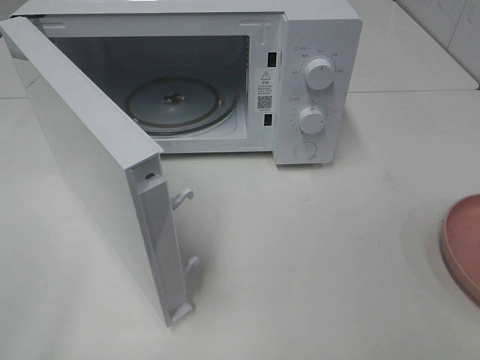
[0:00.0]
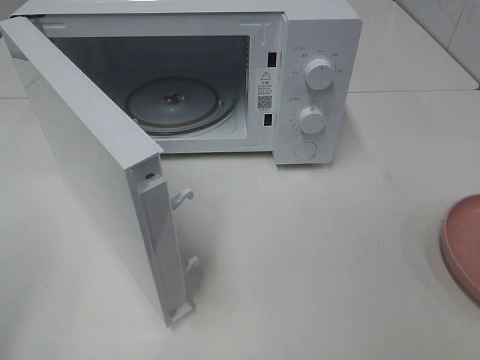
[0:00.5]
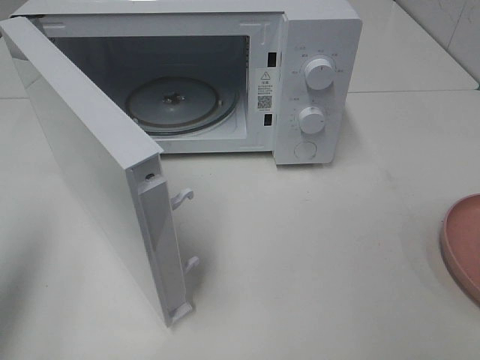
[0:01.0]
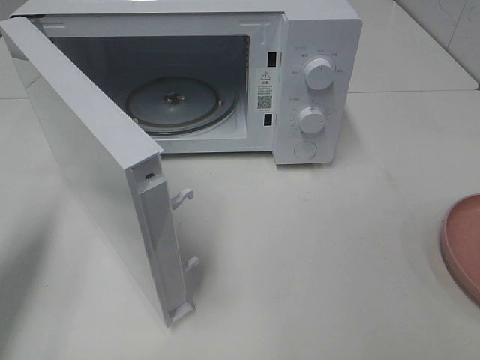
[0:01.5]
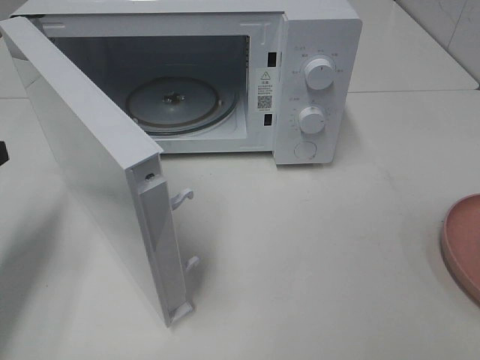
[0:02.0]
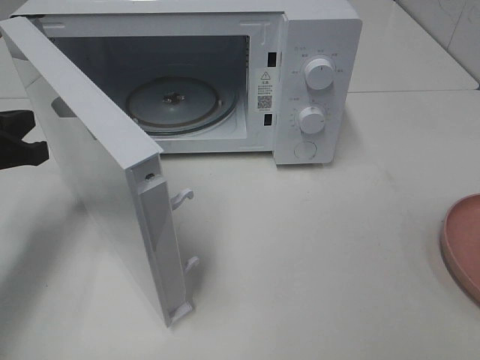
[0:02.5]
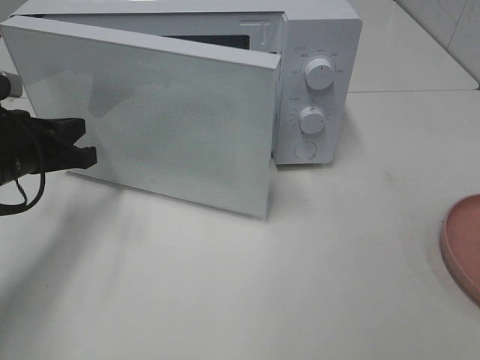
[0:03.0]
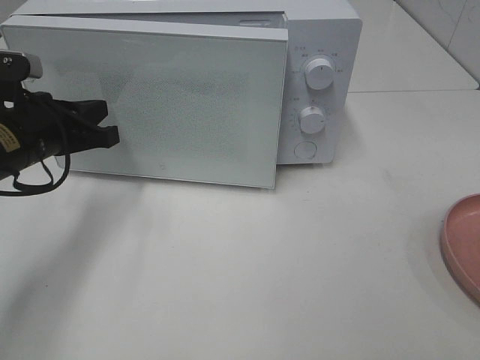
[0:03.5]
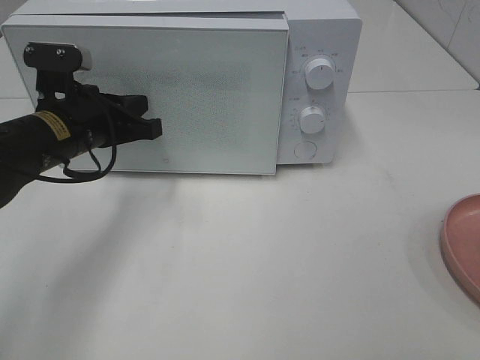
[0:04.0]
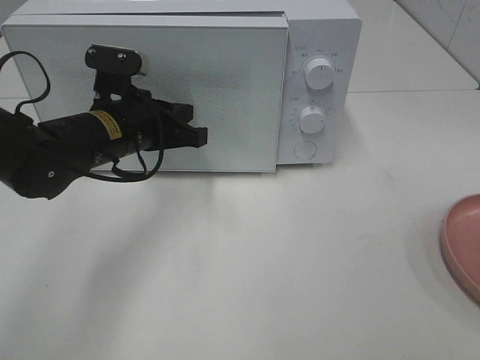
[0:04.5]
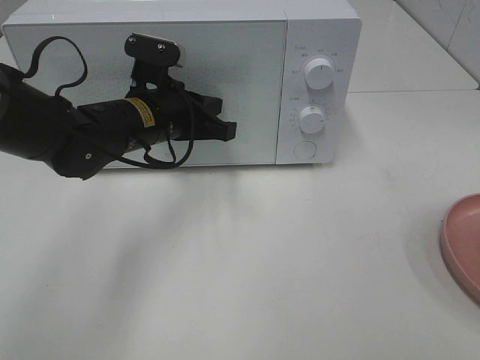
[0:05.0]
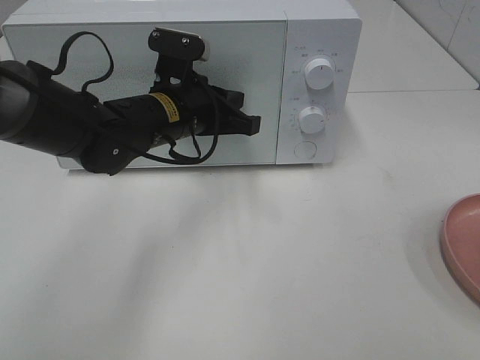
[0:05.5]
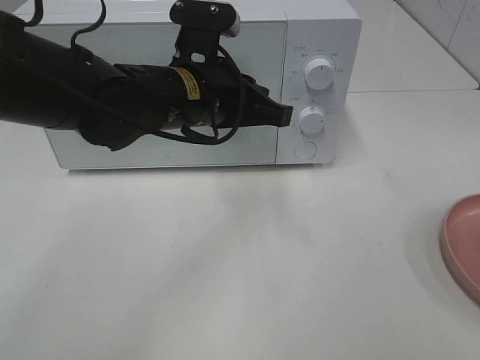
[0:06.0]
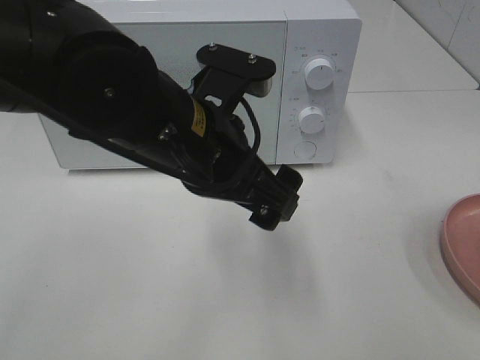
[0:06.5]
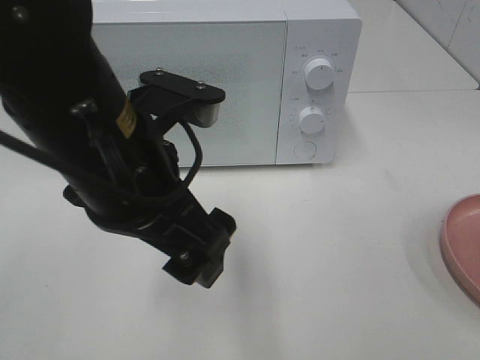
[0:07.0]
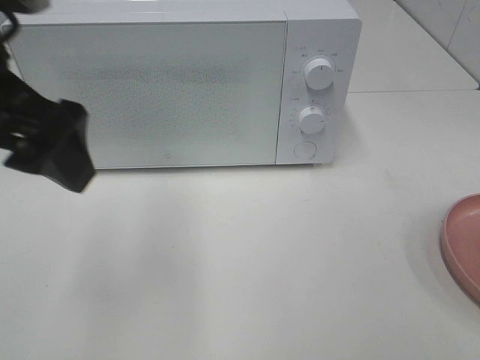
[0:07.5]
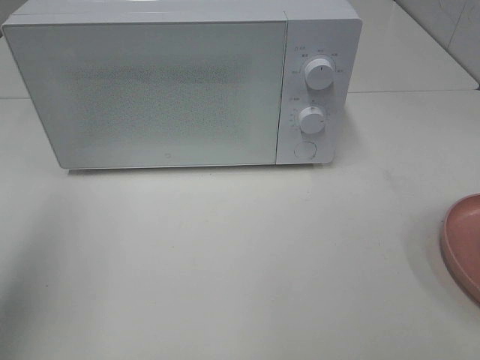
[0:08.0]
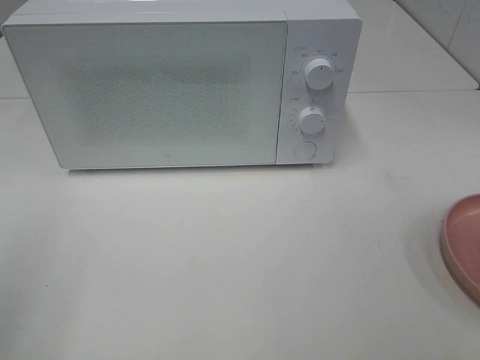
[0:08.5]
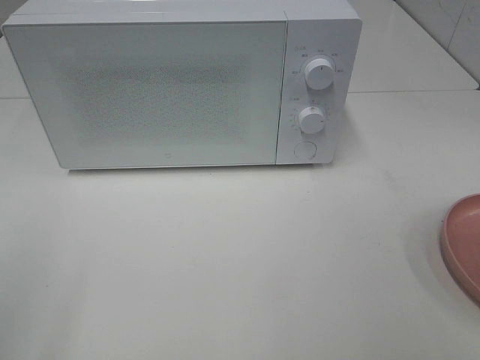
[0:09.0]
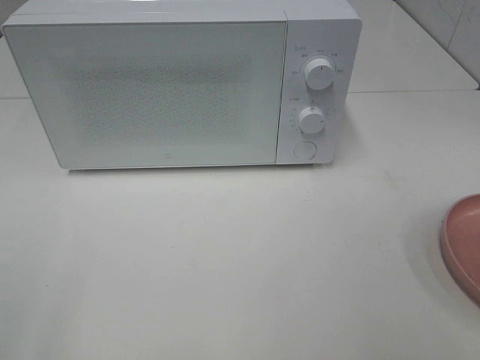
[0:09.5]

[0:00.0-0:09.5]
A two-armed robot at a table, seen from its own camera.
Task of the whole recording: Heat the burger.
Step, 0:00.0 to 0:05.5: Left hand: close the microwave door.
0:00.0 to 0:02.0: The left gripper moves forward and downward, some 25 cm, and closes its fingers.
0:02.0 to 0:04.0: The left gripper moves to the right and forward, some 15 cm.
0:04.0 to 0:05.5: The left gripper shifts roughly 10 cm to the right.
0:05.5 to 0:07.5: The left gripper shifts roughly 25 cm upward, backward and to the left, and opens up.
0:07.5 to 0:09.5: The left gripper goes approximately 25 cm backward and to the left.

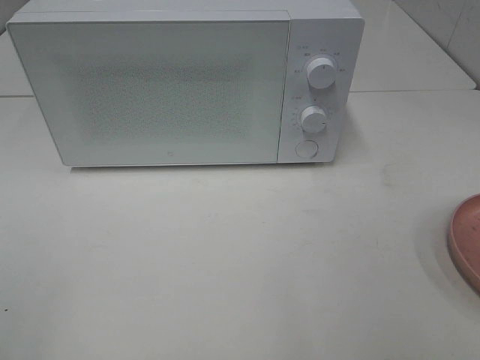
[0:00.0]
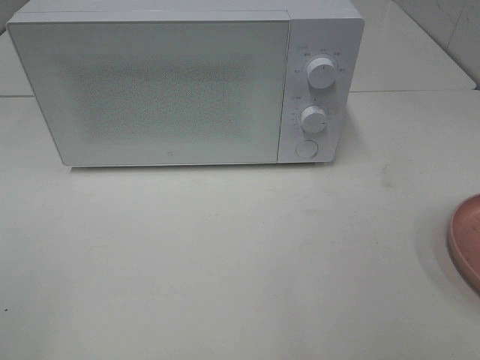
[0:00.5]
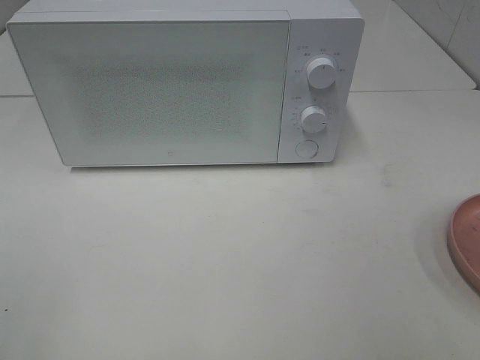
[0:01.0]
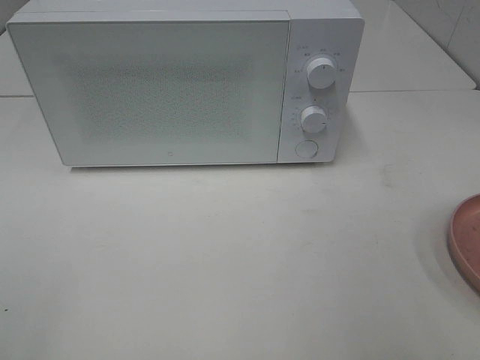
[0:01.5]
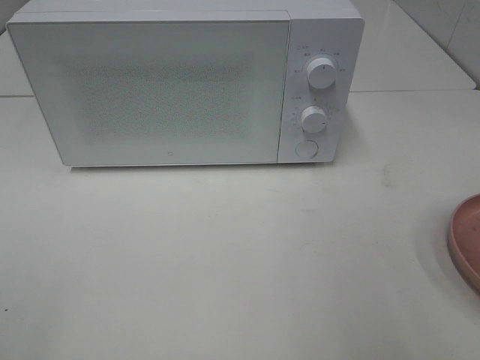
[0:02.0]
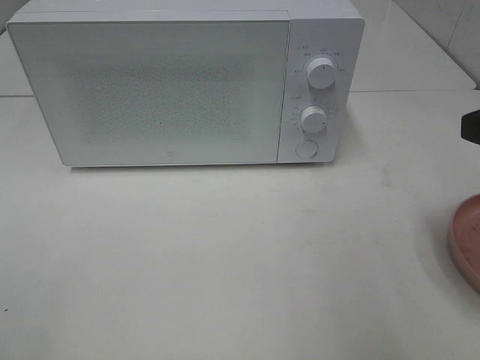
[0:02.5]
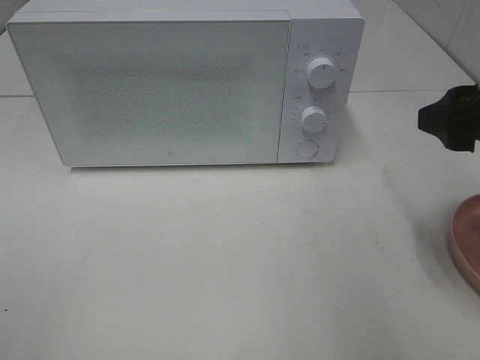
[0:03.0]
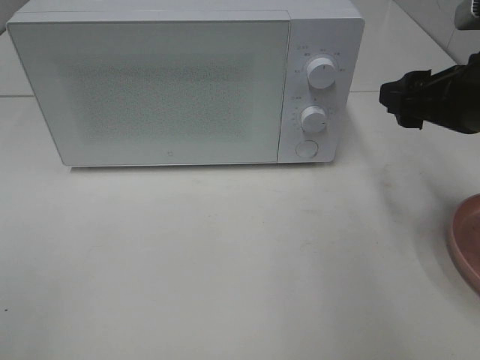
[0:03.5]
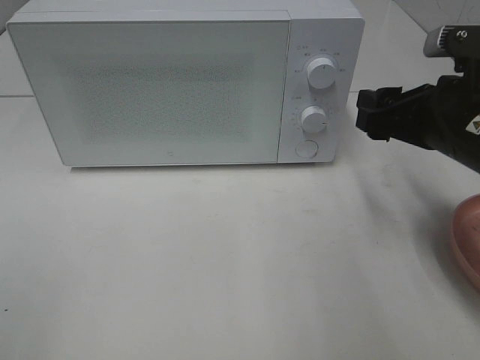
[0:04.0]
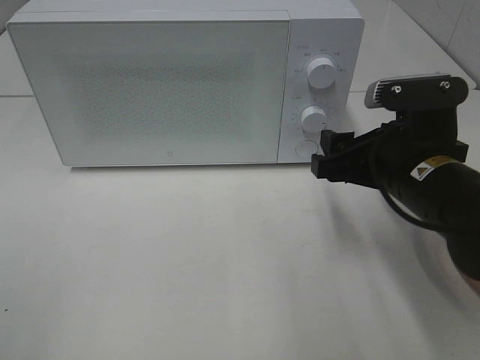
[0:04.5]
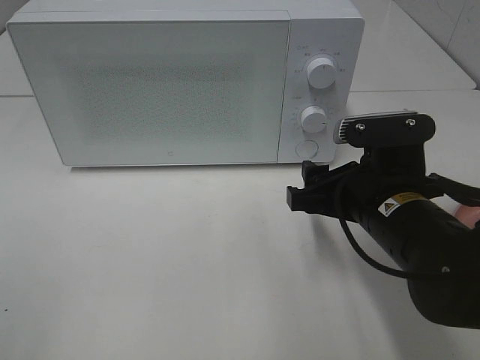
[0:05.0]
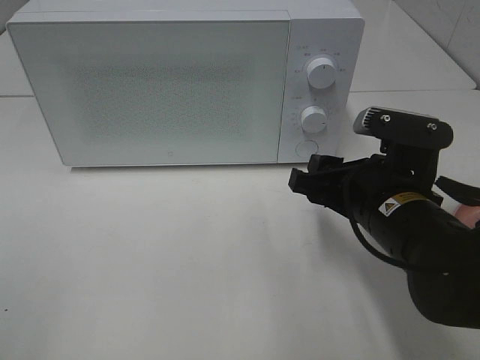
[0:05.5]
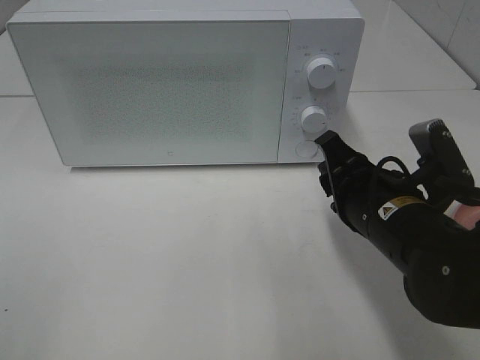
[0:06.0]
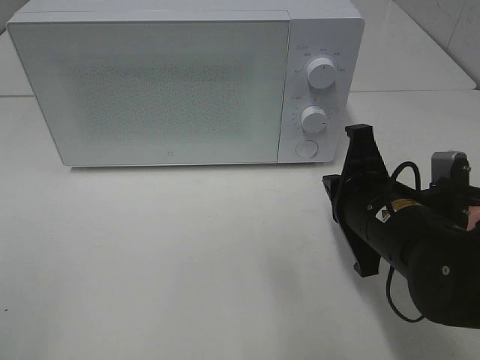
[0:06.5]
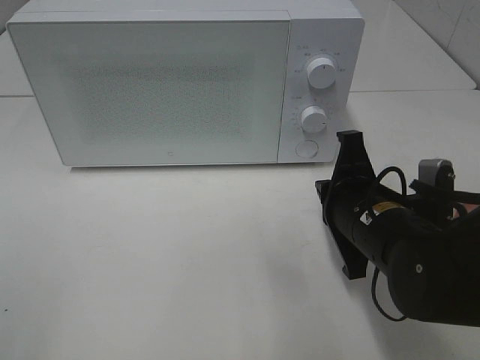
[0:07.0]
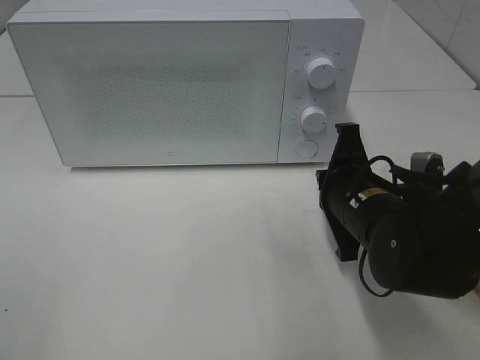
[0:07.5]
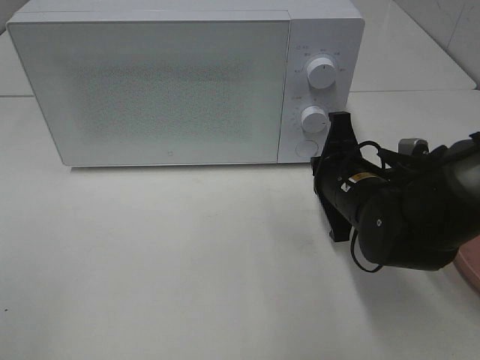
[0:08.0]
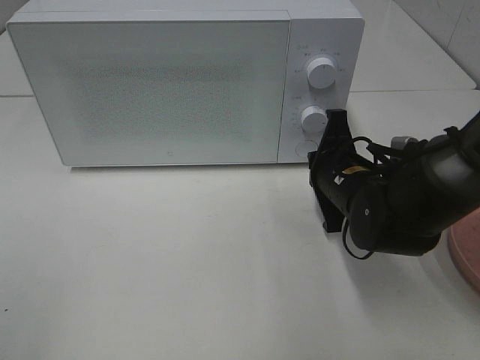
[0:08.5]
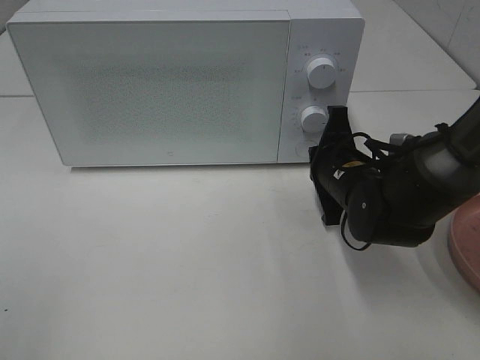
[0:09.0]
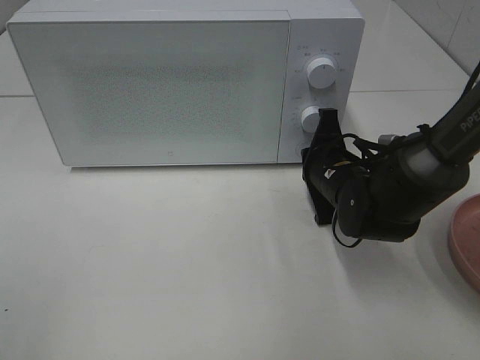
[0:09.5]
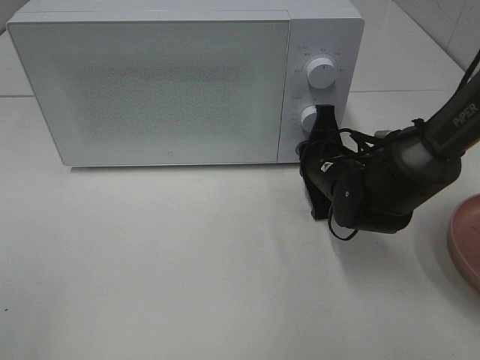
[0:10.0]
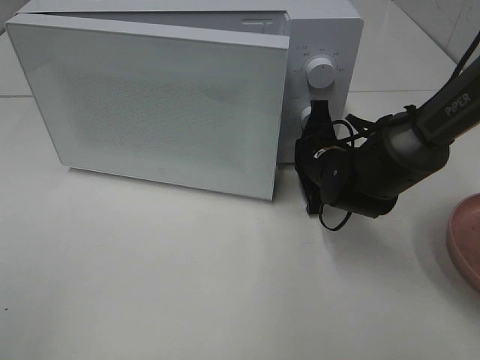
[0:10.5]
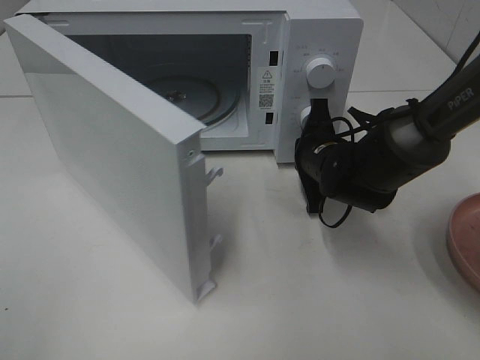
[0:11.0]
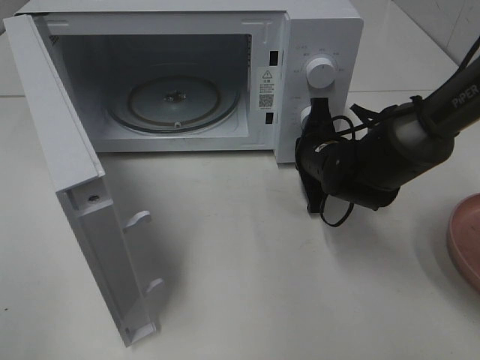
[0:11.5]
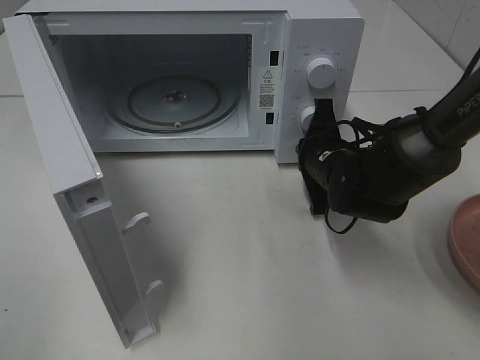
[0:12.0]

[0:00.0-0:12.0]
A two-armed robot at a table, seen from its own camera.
Task of the whole recording: Heat the burger.
0:02.0 to 0:04.0: The right gripper is displaced forward, downward and to the left by roughly 20 cm.
0:04.0 to 0:06.0: The right gripper heads to the left and downward, covering approximately 10 cm, and closes up.
0:06.0 to 0:08.0: The right gripper is displaced forward by some 5 cm, and closes.
0:08.0 to 0:10.0: The right gripper heads forward, covering about 5 cm.

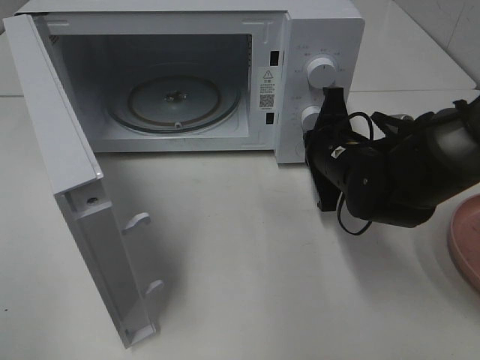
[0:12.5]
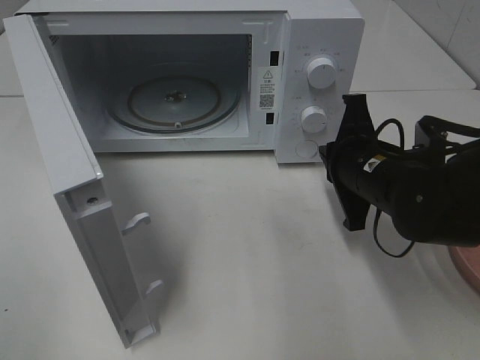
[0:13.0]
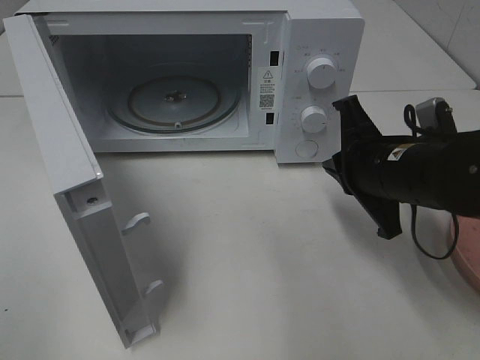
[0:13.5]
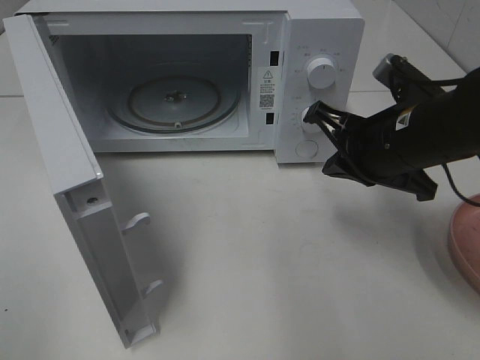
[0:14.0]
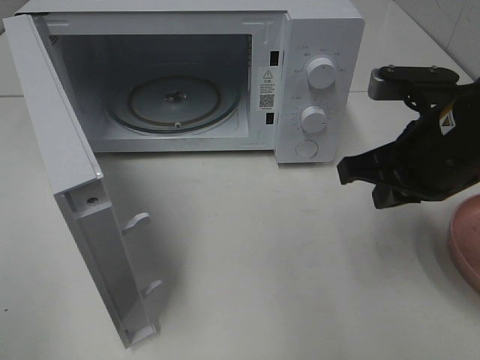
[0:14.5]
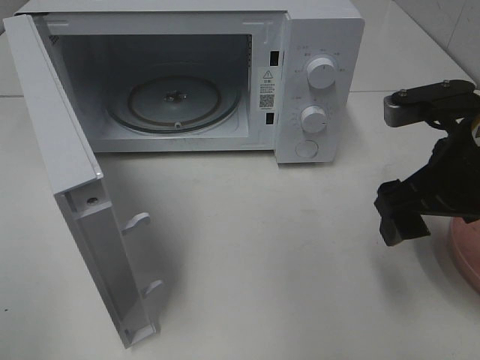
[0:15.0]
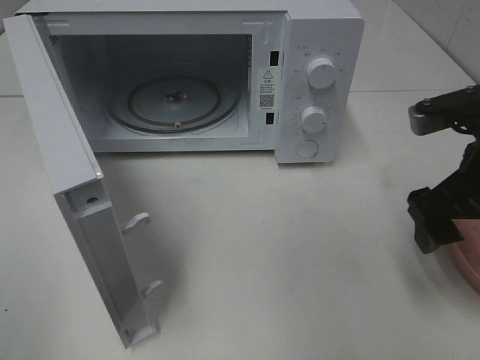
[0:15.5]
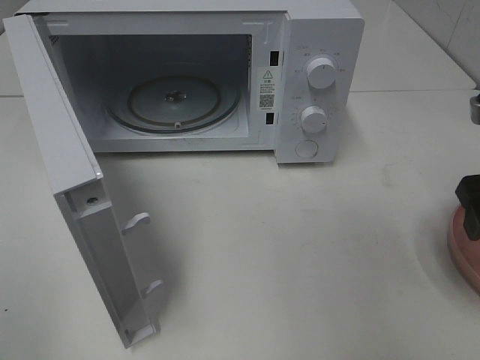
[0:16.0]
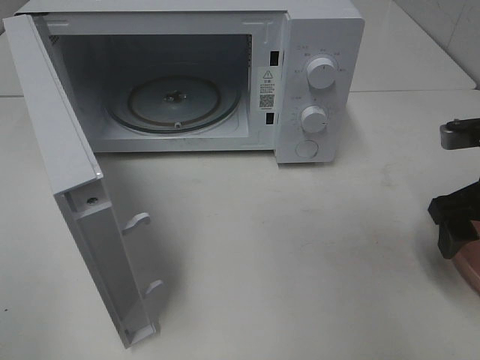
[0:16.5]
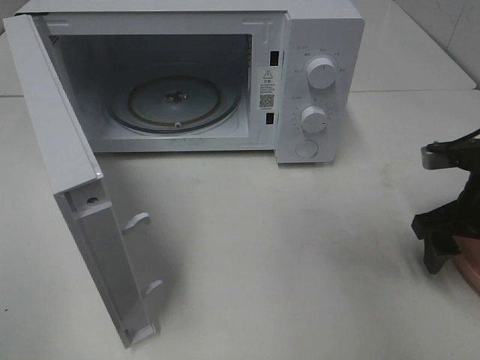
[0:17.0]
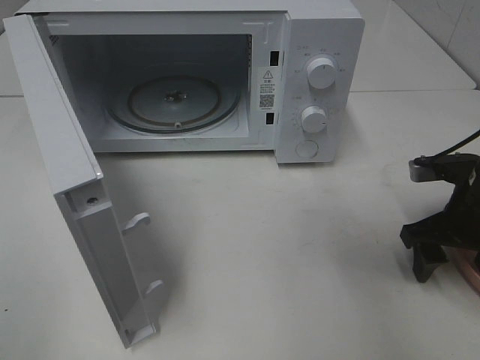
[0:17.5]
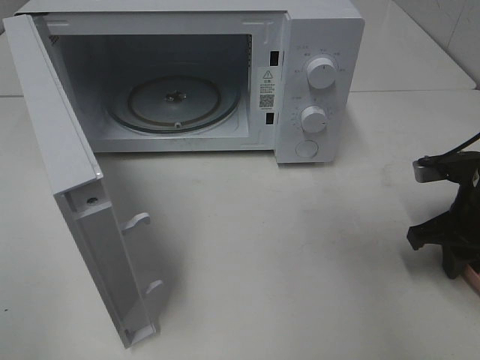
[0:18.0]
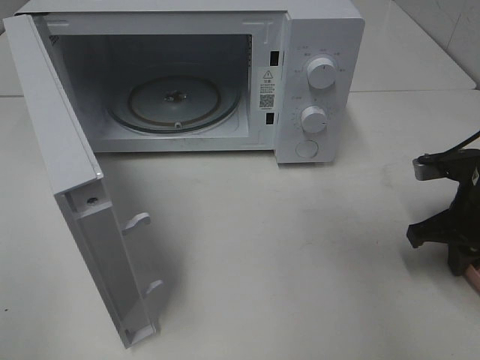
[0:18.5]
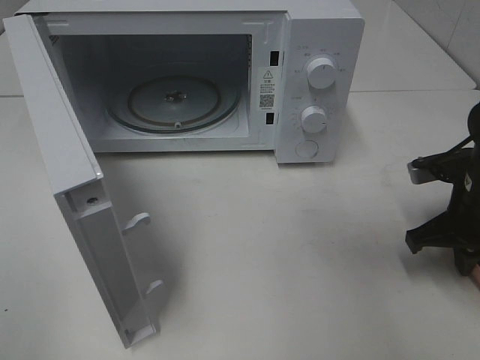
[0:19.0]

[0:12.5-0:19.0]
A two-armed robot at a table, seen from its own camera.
Task of the whole recording: Heat the burger.
0:12.5 to 0:14.5: The right gripper travels upward and backward by approximately 10 cm.
0:14.5 to 0:17.0: The right gripper is displaced to the right and downward by roughly 10 cm, and opens.
0:17.0 to 0:19.0: The right gripper closes up.
